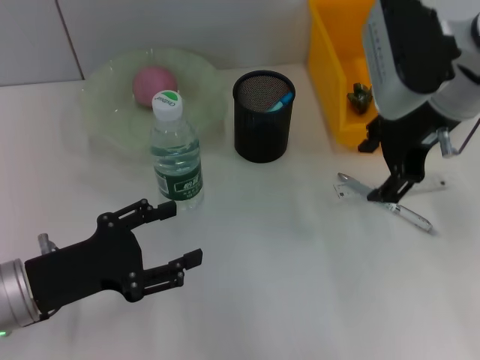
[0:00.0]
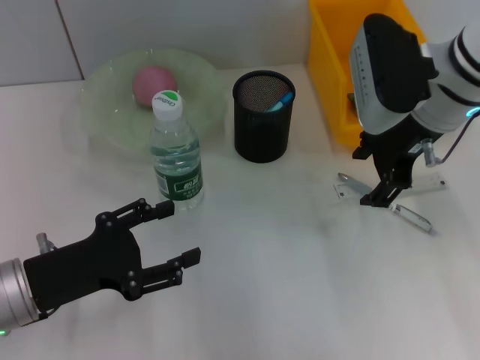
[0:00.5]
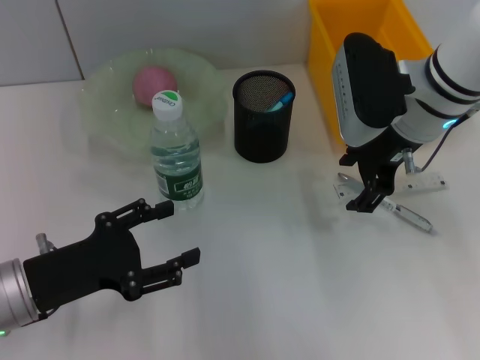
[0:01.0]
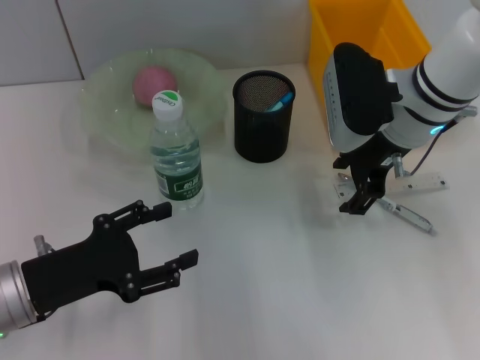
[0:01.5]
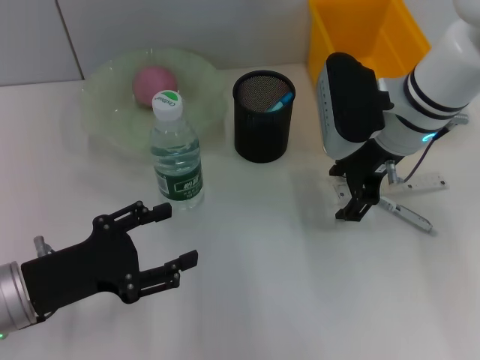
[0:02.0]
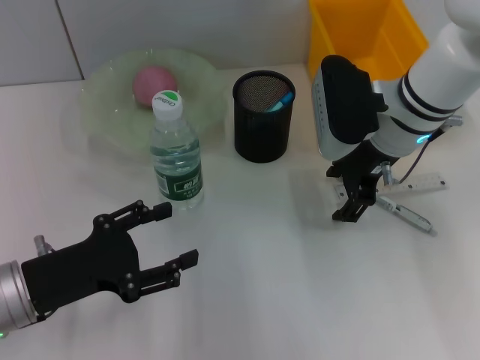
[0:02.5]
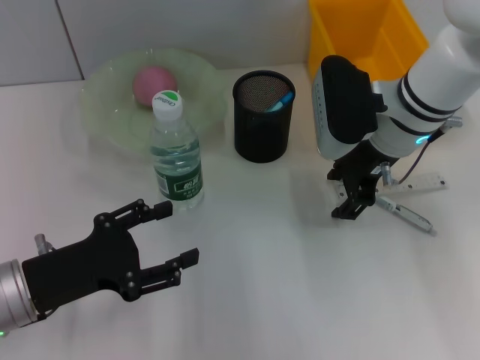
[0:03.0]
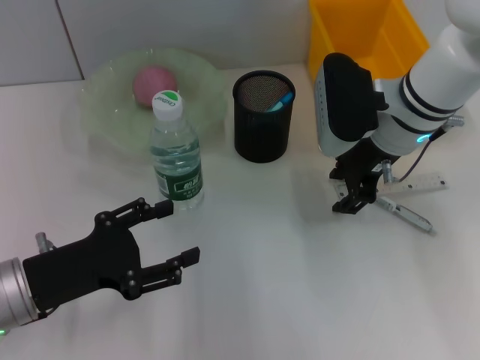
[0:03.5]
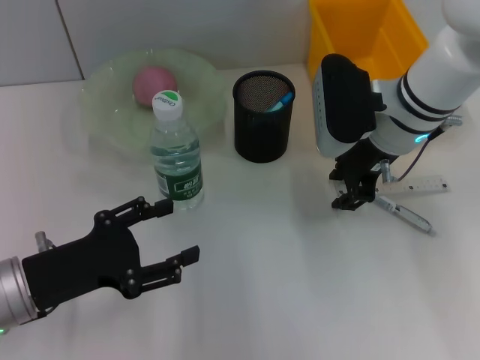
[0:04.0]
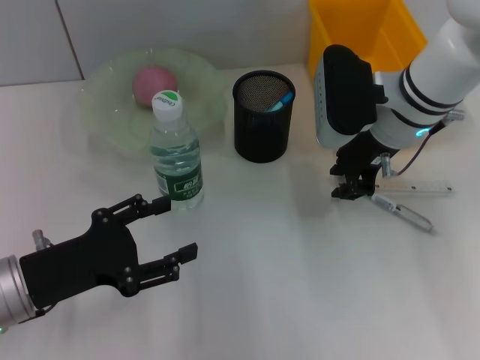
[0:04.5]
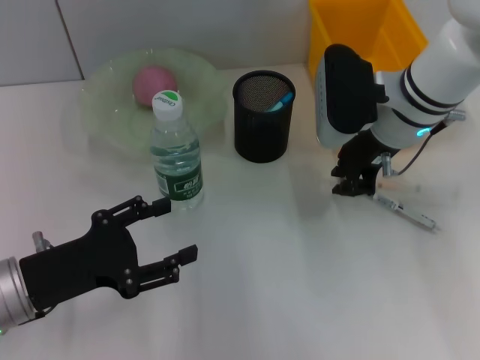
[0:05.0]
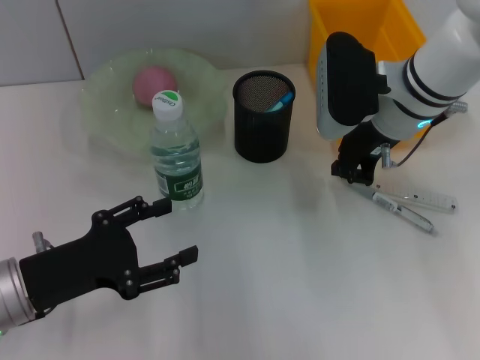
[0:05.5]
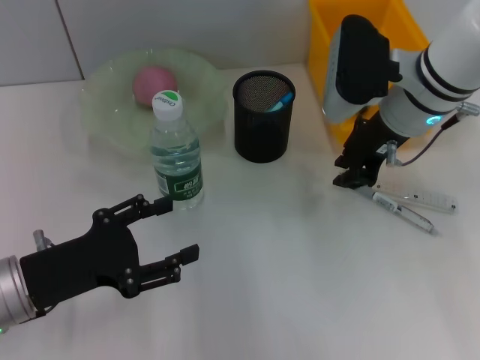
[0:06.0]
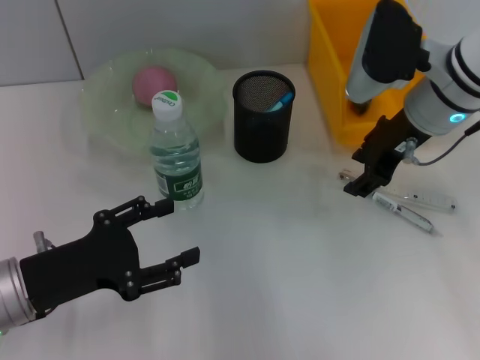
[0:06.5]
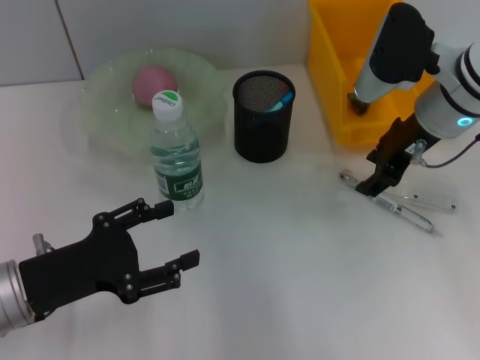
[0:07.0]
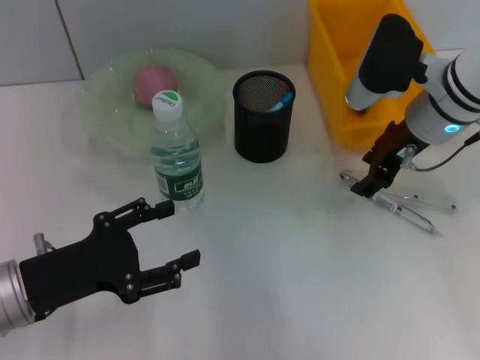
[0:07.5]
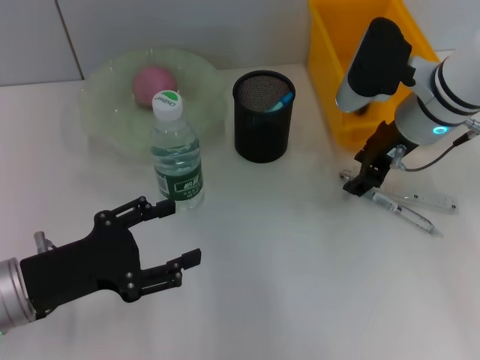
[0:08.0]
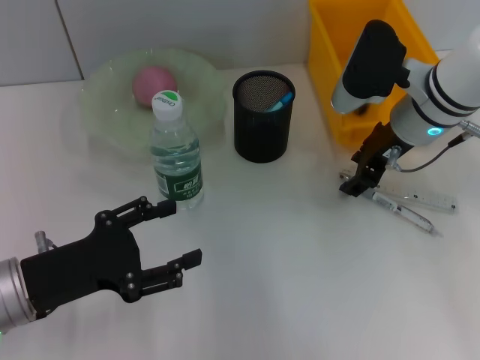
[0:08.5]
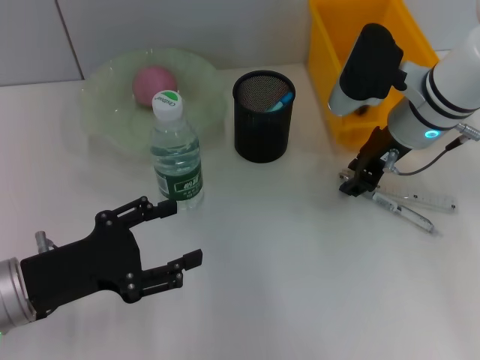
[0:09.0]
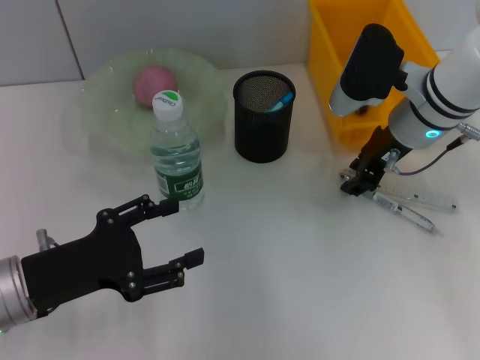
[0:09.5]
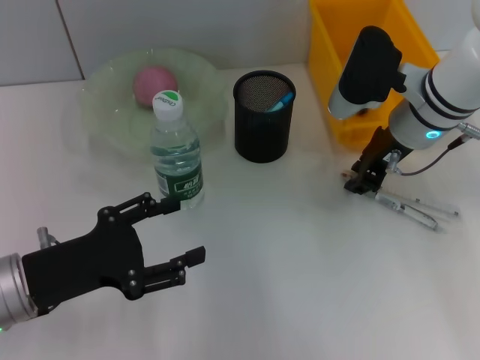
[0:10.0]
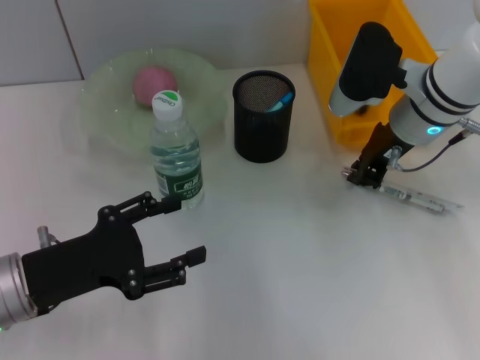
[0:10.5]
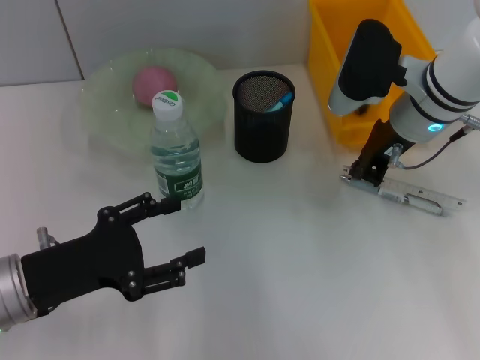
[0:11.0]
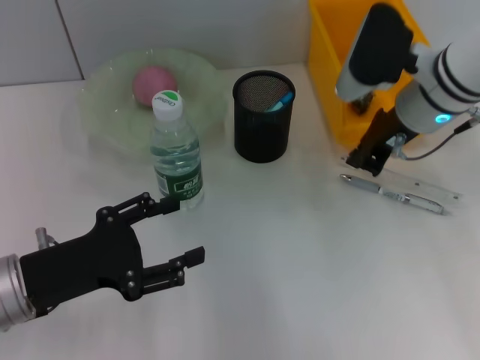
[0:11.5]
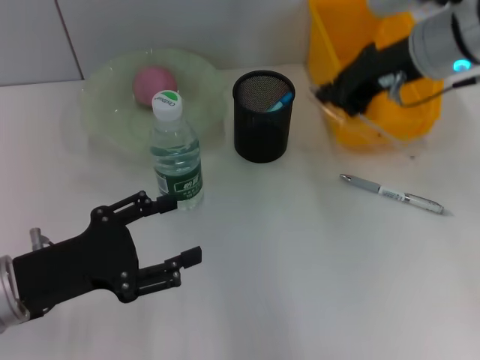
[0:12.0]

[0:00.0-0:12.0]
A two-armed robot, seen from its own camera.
Step, 0:00.0 to 0:03.5: Grab the ruler with the right hand.
0:00.0 to 0:02.0: The right gripper travels downward by some 10 cm.
0:02.0 to 0:04.0: Both grippers stay about where they are.
0:04.0 to 0:06.0: The right gripper closes its fingers.
0:06.0 to 0:08.0: The right gripper opens.
0:08.0 to 0:10.0: Both grippers stay put.
0:10.0 to 0:12.0: The right gripper goes some 10 cm upward, and closes.

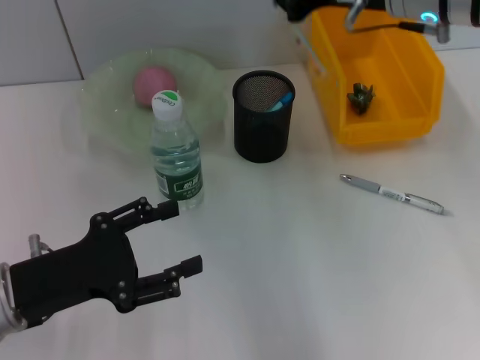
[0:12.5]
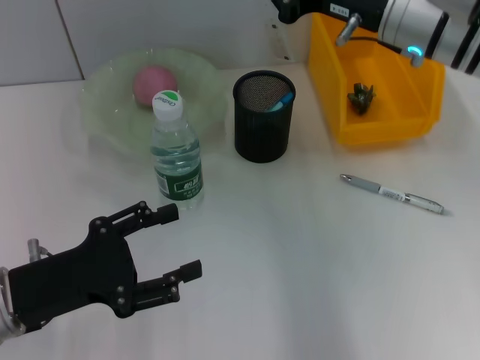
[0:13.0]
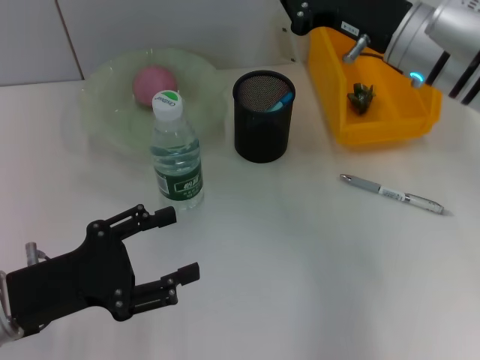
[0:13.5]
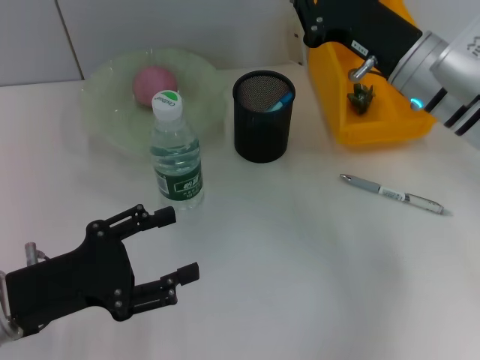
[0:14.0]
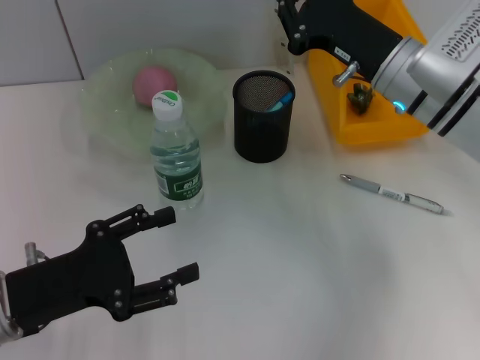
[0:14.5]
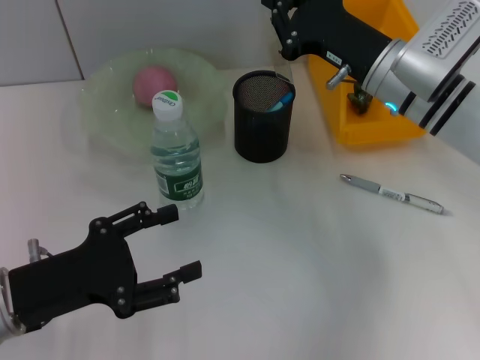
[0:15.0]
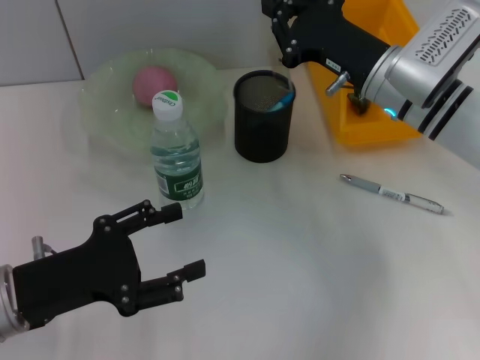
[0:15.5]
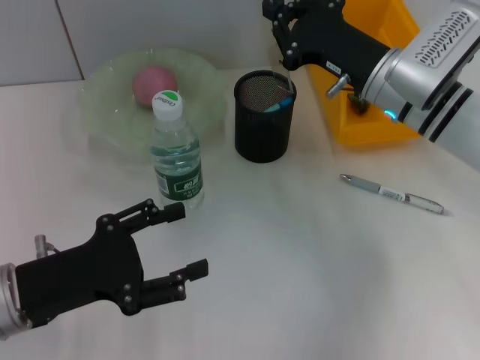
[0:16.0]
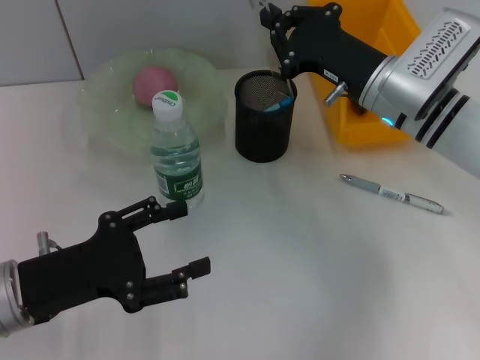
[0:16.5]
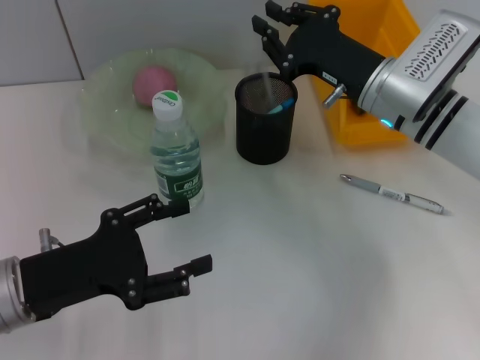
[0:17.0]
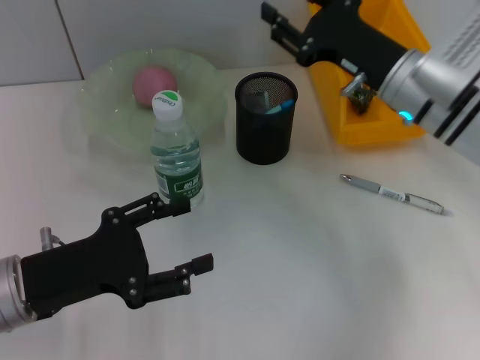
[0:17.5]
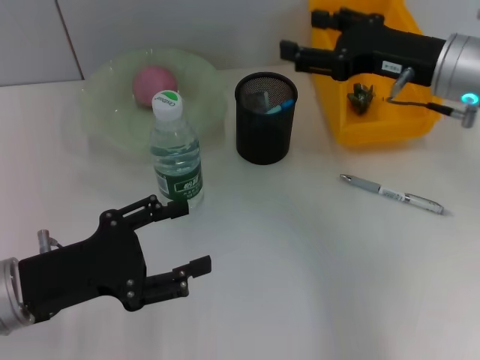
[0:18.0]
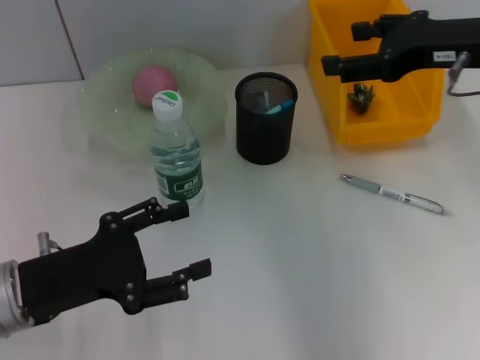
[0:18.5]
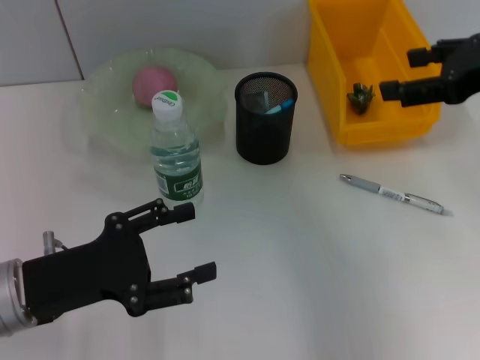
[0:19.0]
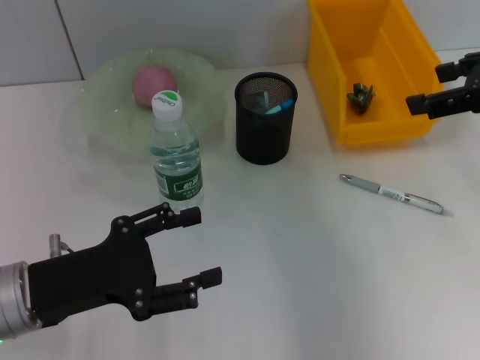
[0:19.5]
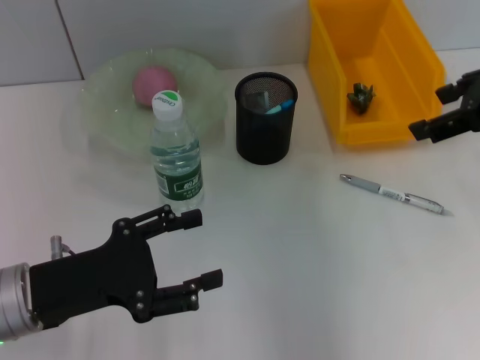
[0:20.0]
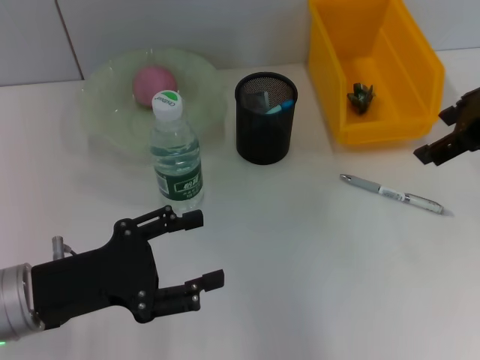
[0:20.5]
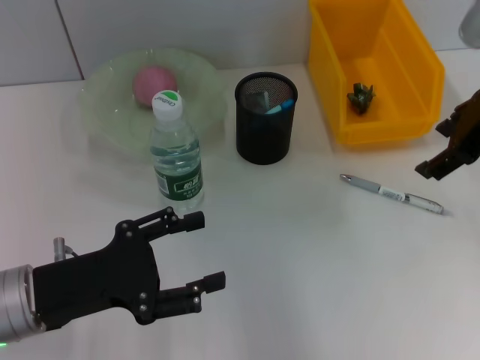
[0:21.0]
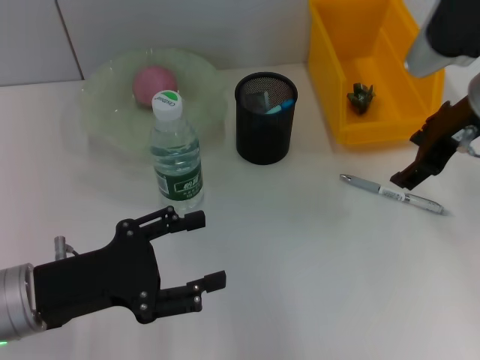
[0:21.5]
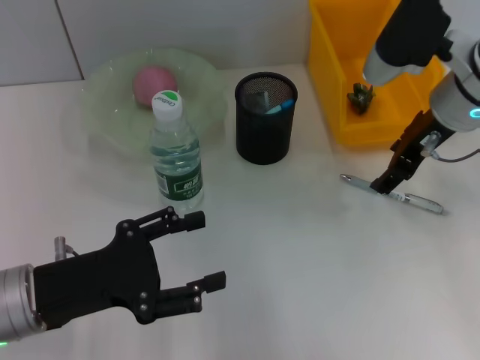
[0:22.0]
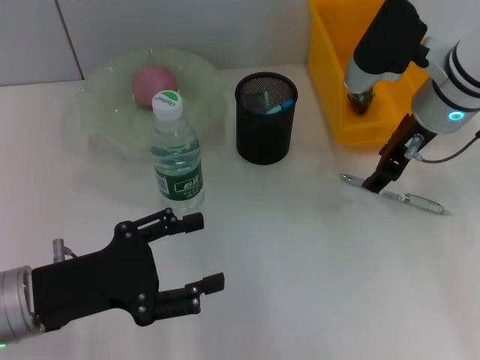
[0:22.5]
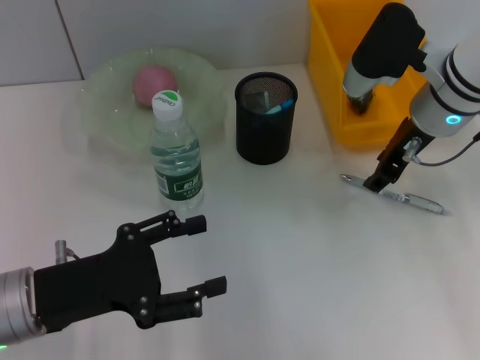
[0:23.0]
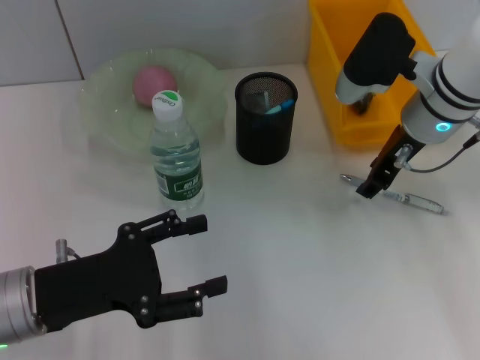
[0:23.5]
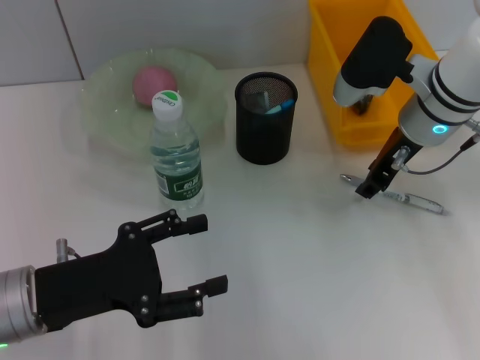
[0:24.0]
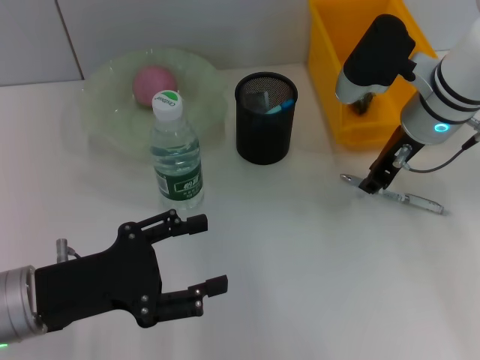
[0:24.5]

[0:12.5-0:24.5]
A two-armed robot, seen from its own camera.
Step, 0:12.5 to 0:17.0: Place the ruler into the pen holder with the right hand.
0:12.5 to 0:14.5: The right gripper shifts roughly 10 cm downward.
0:14.5 to 0:16.5: There are only small adjustments of the grippers.
0:16.5 to 0:18.5: The right gripper goes some 15 cm upward and to the right, and opens its fingers.
0:20.5 to 0:22.5: The right gripper is displaced downward, to the left and forward by approximately 10 cm.
0:22.5 to 0:24.5: The right gripper closes.

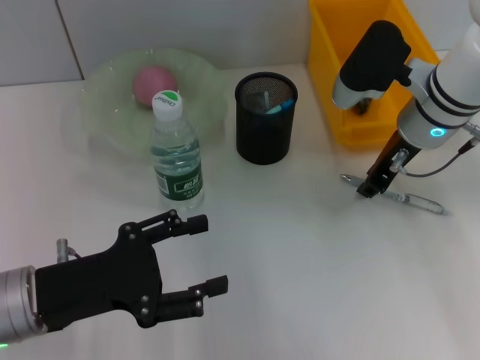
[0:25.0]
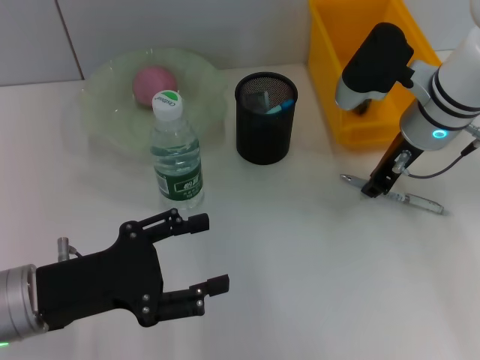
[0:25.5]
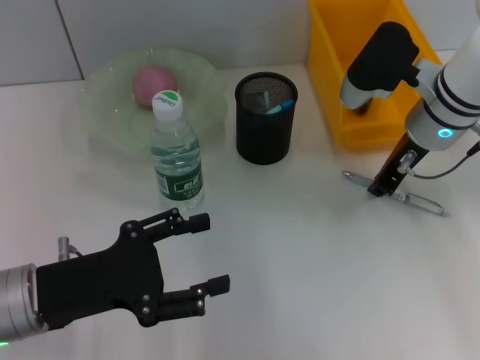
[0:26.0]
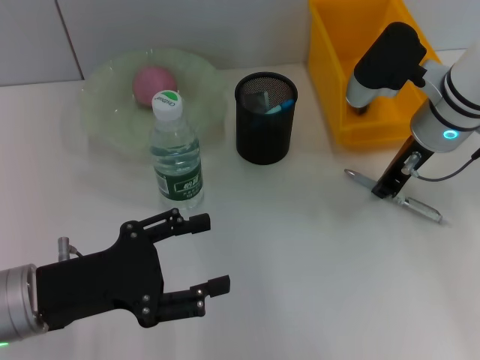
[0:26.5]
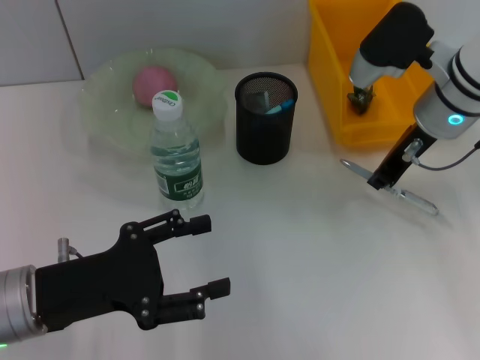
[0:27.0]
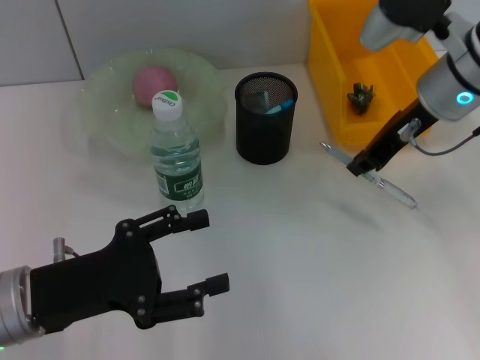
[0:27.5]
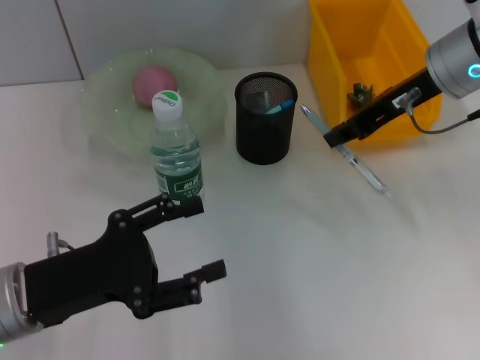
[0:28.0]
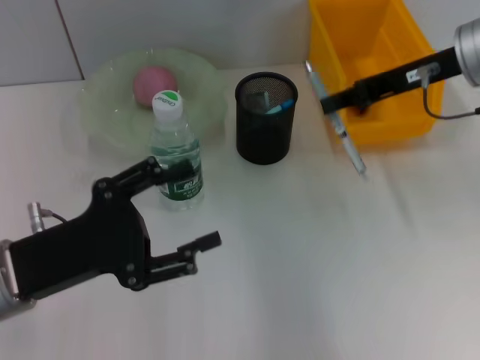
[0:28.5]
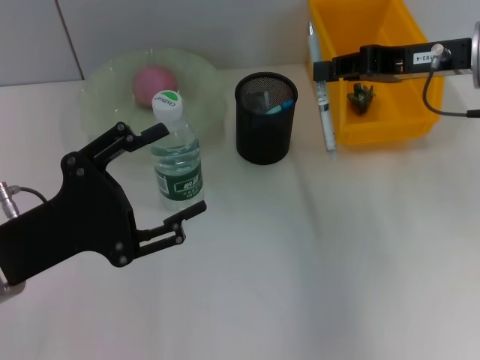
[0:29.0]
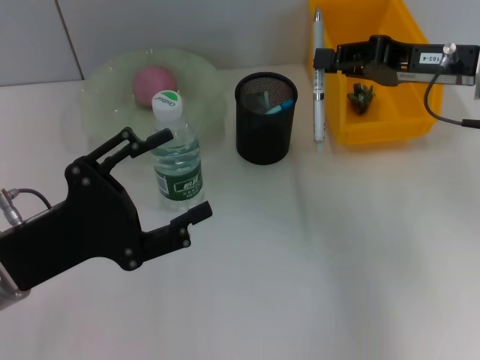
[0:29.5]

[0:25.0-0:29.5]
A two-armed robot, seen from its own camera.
0:25.0 to 0:27.0: There are only small adjustments of the grippers.
0:27.0 to 0:29.5: The right gripper travels to the right by some 5 cm.
